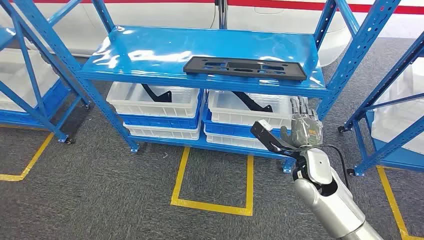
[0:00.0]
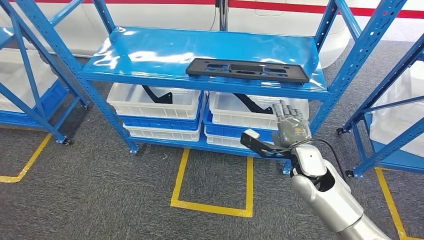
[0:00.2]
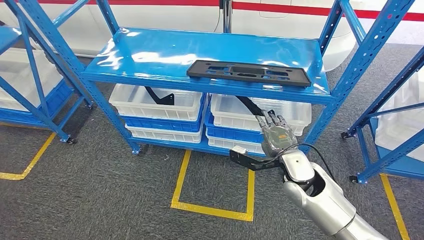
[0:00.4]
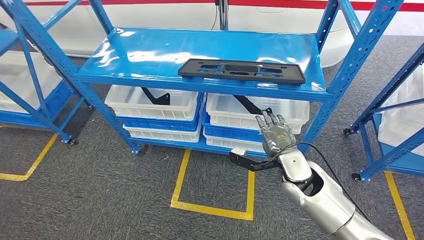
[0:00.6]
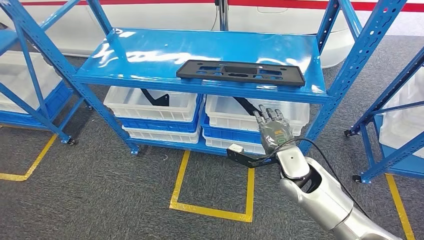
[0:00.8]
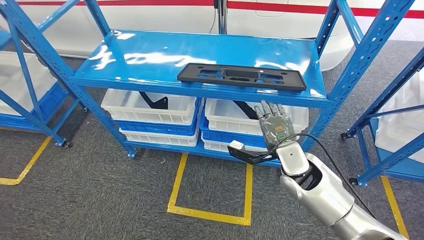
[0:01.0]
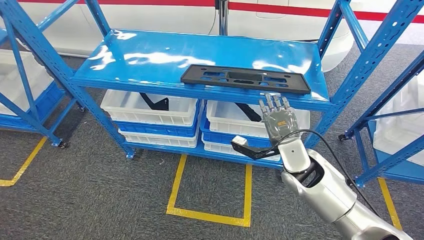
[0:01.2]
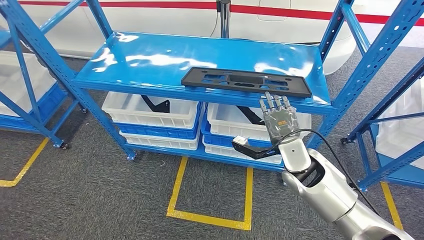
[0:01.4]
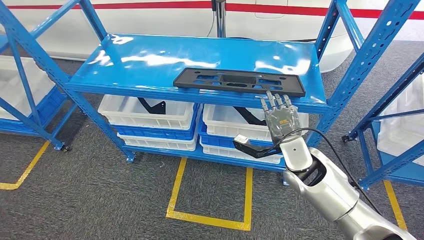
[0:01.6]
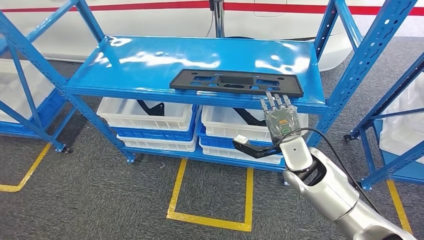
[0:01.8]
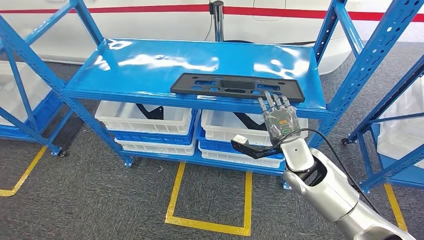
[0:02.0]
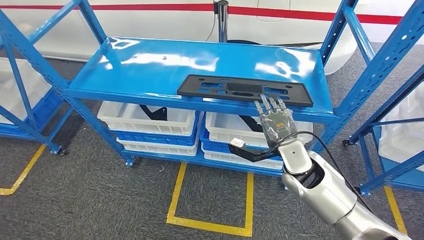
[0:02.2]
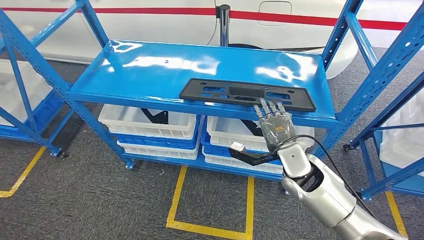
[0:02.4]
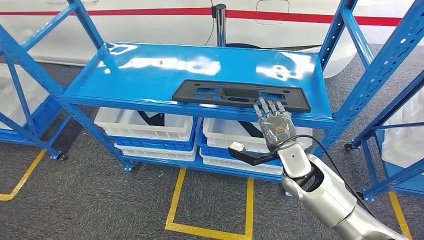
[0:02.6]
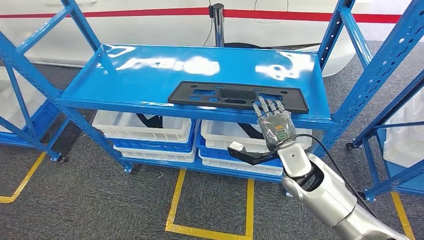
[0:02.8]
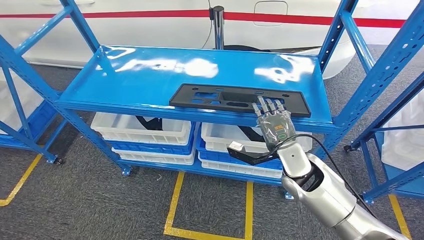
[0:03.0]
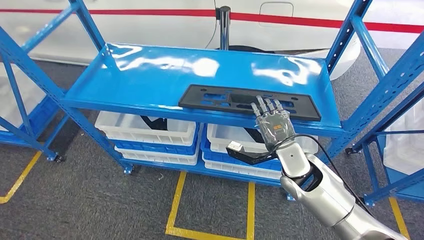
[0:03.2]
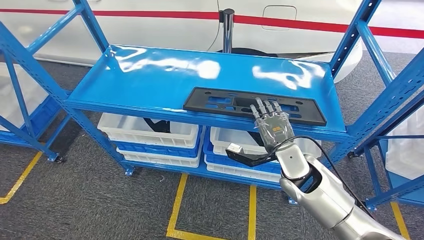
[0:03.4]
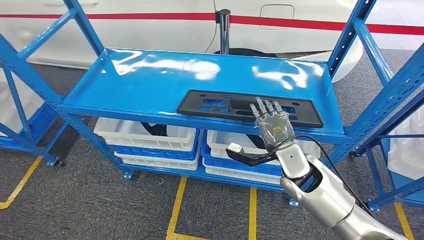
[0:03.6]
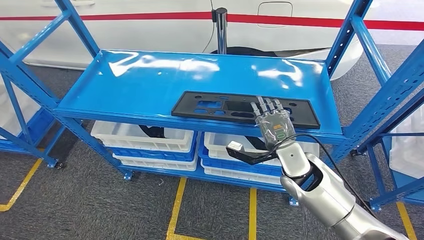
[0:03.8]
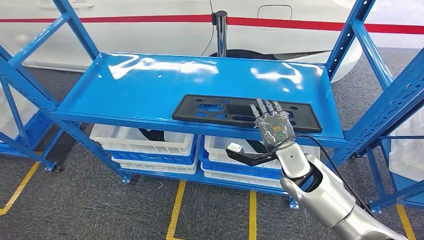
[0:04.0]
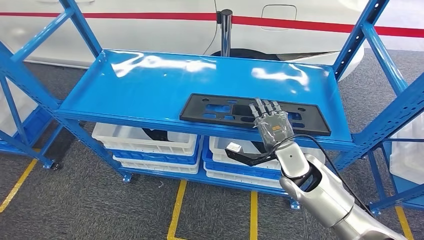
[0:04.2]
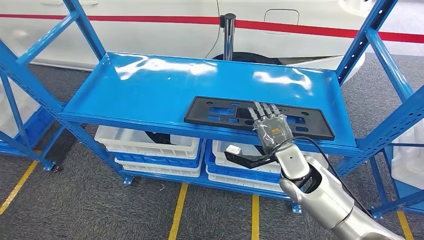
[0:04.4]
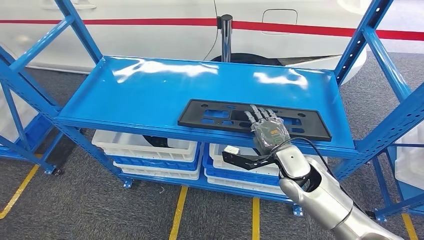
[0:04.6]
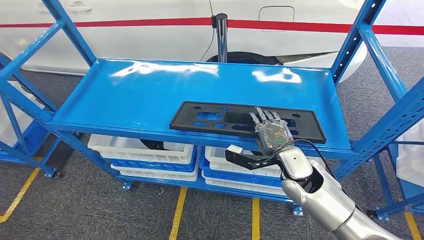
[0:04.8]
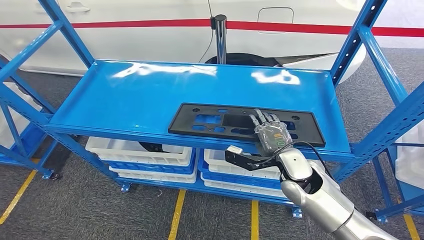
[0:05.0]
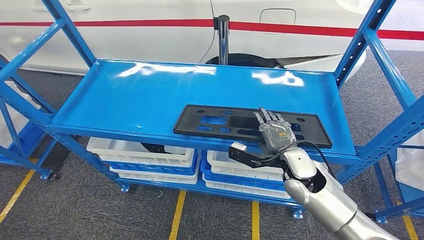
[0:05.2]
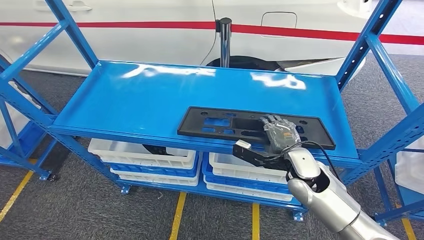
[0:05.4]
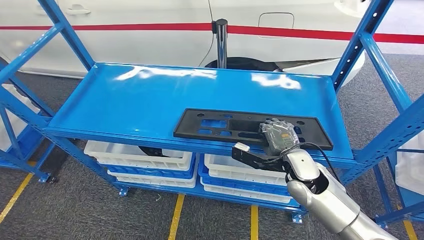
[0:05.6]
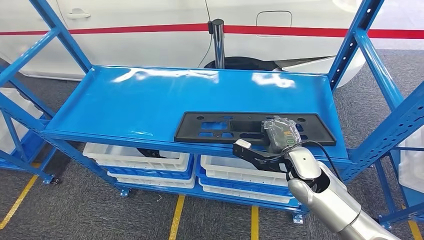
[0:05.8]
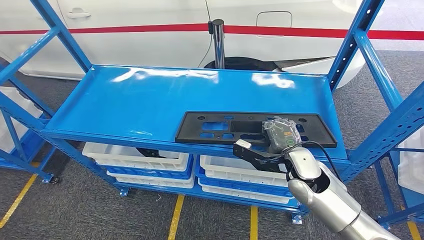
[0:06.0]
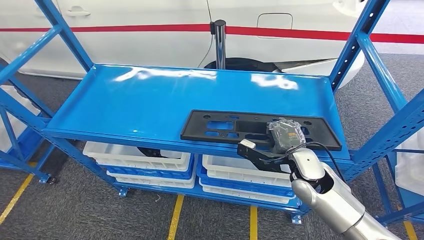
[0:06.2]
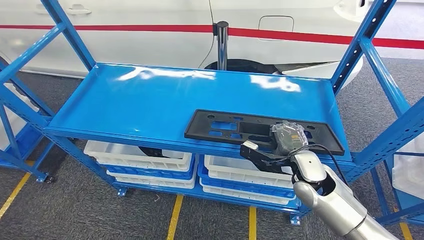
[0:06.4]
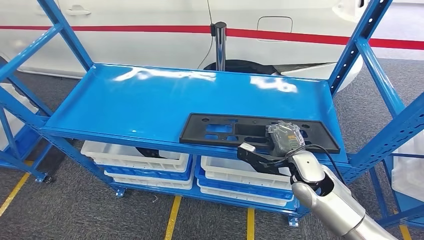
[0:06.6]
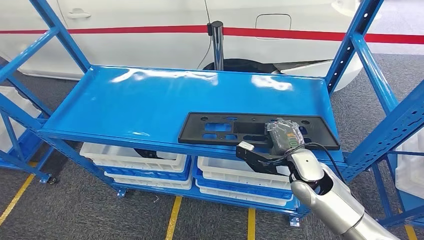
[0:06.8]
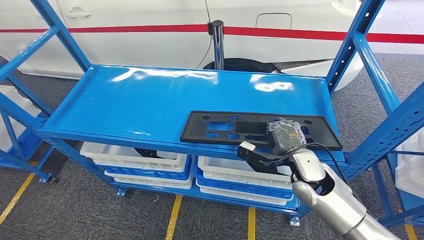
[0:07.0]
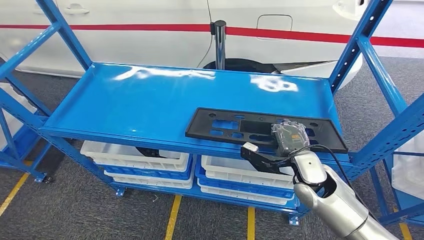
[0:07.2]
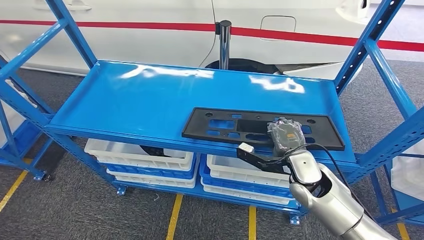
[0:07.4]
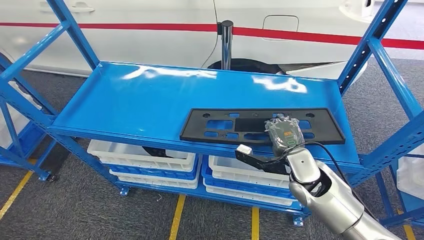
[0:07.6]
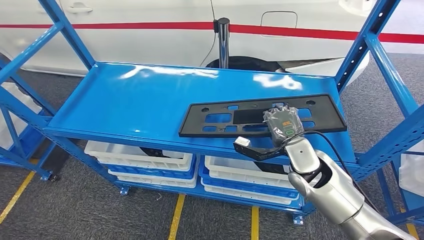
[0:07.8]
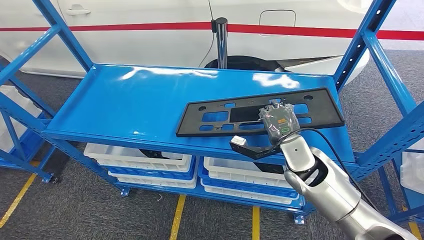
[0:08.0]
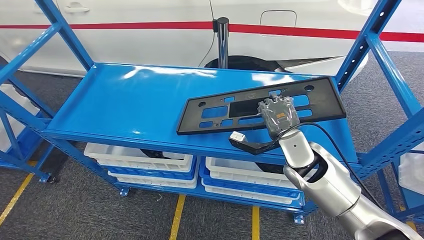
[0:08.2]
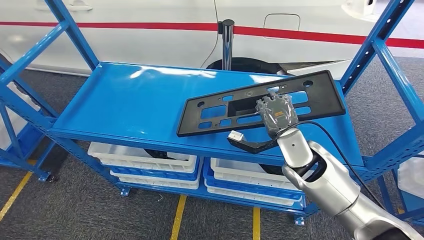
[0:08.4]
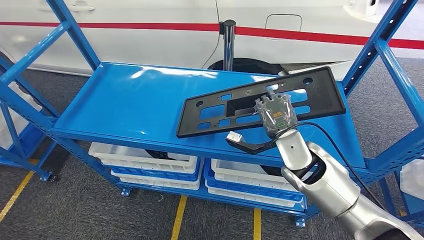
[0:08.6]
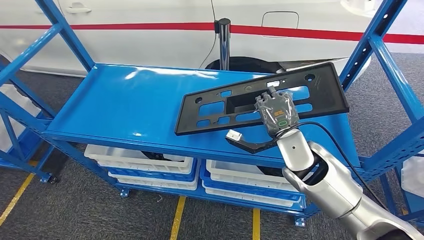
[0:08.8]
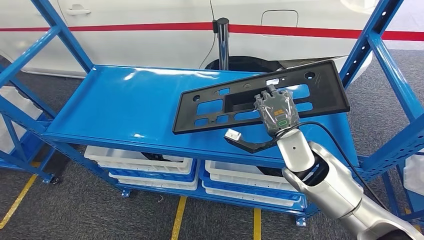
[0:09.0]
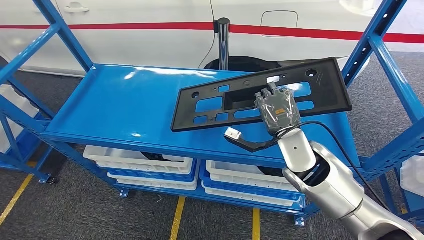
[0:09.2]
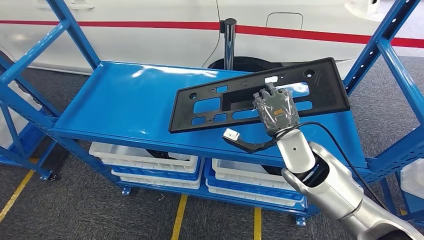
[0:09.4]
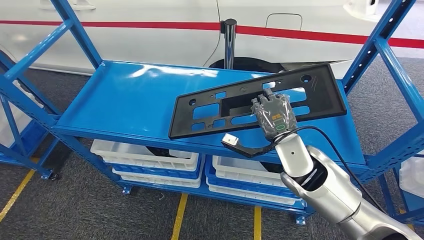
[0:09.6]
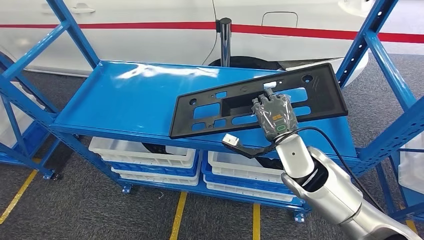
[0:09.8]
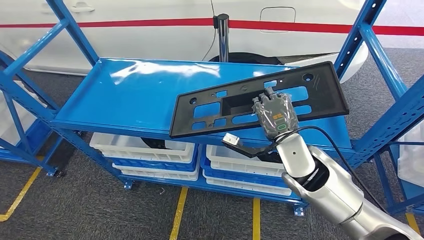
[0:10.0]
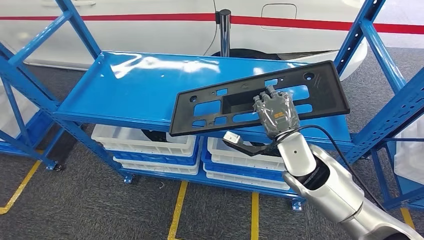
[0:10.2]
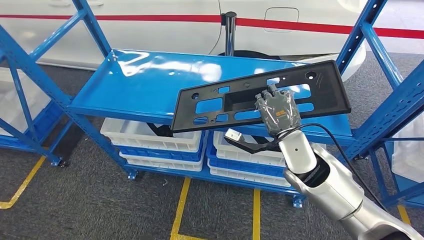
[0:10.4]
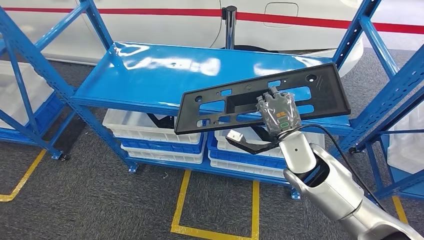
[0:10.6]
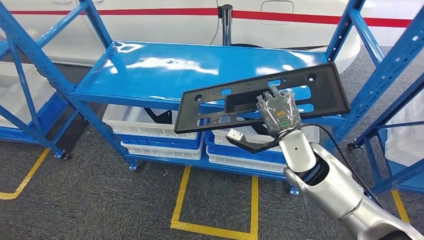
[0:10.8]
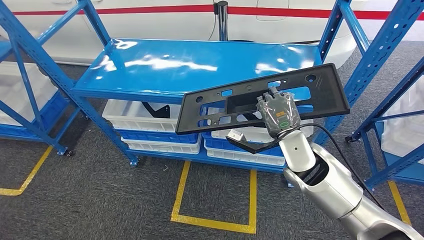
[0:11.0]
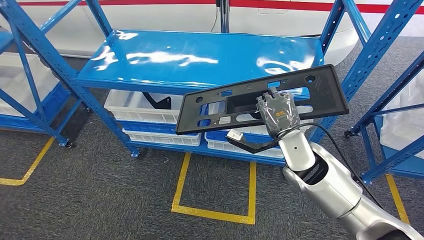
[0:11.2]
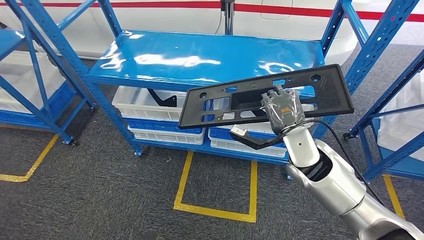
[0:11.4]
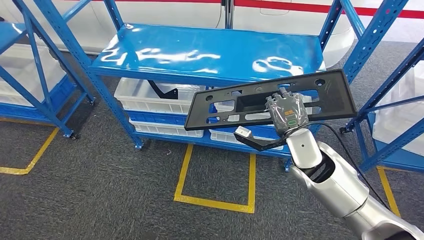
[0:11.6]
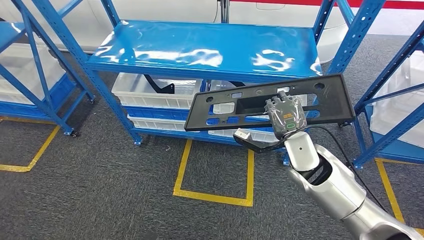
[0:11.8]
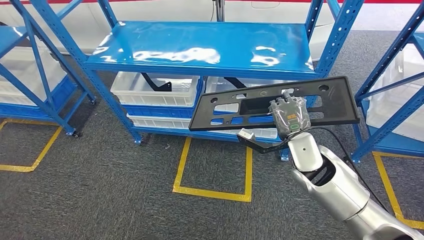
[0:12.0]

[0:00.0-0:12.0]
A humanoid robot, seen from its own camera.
Step, 0:00.0 to 0:11.2: Pick up the large material from the shelf.

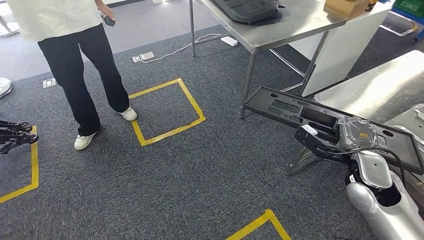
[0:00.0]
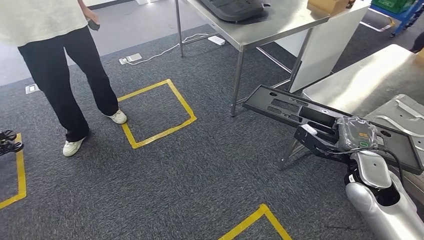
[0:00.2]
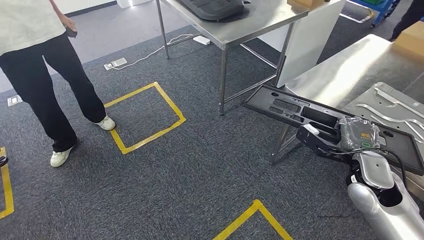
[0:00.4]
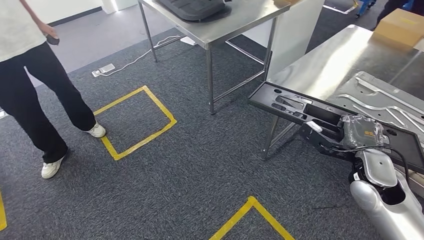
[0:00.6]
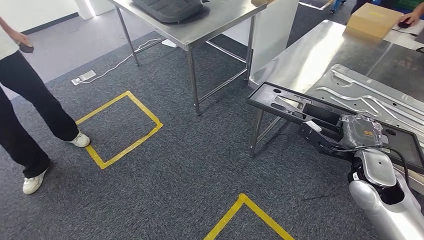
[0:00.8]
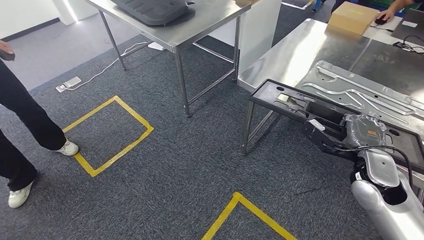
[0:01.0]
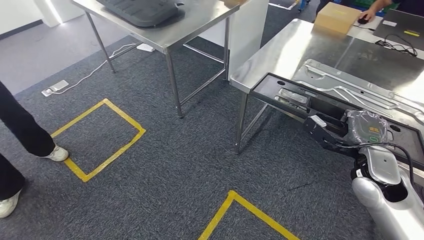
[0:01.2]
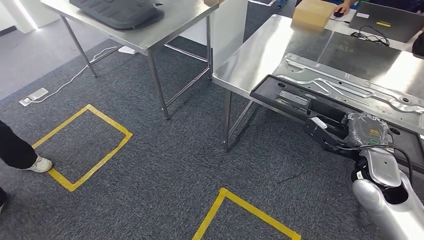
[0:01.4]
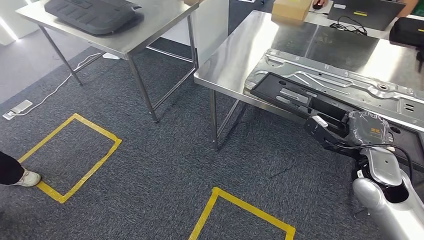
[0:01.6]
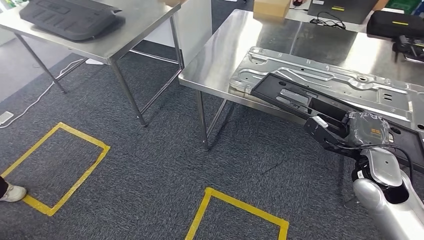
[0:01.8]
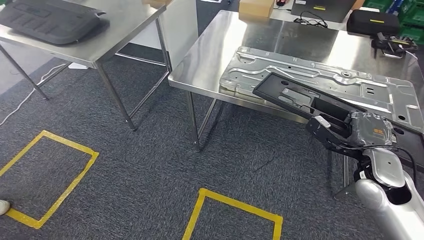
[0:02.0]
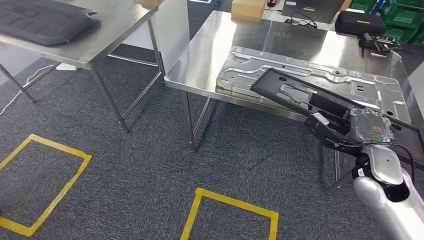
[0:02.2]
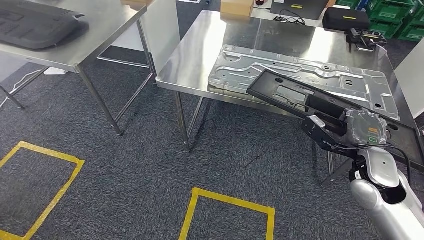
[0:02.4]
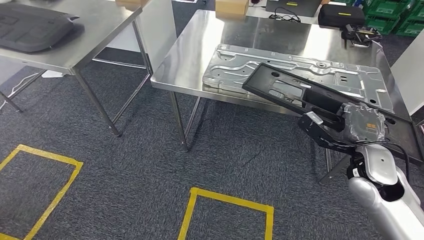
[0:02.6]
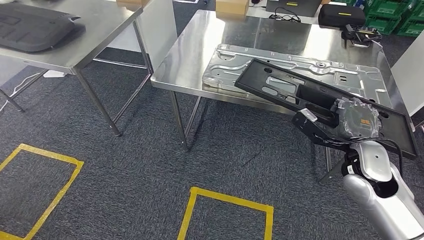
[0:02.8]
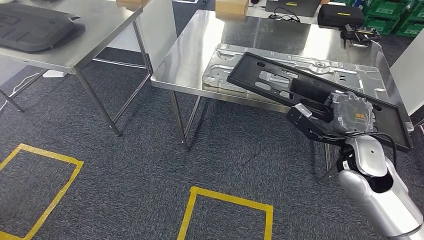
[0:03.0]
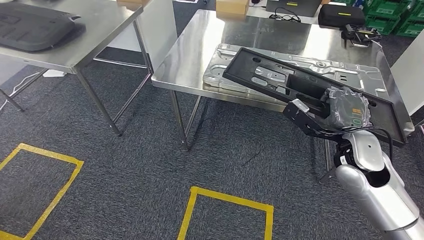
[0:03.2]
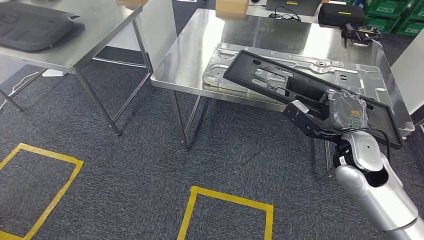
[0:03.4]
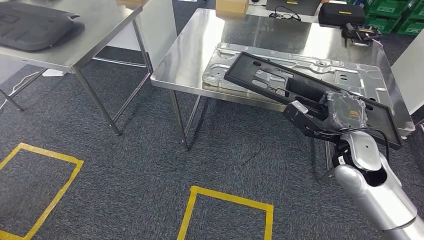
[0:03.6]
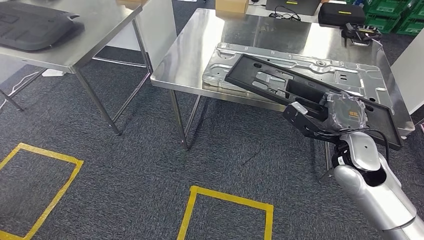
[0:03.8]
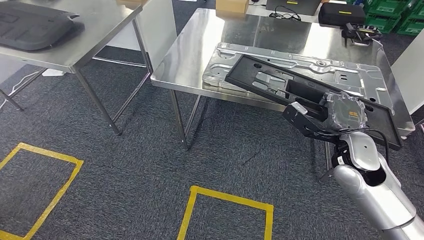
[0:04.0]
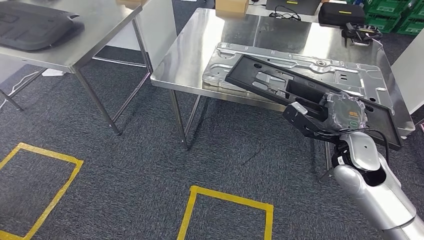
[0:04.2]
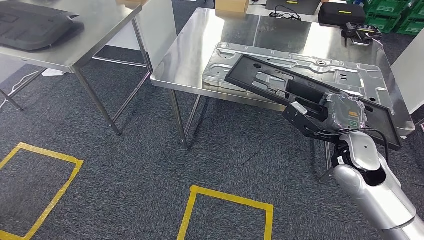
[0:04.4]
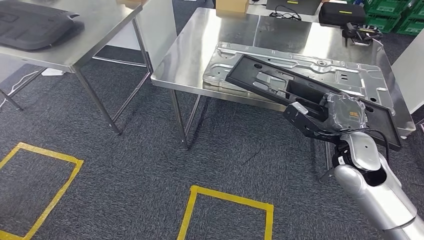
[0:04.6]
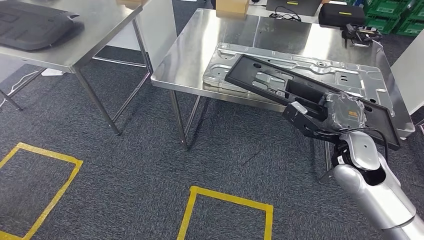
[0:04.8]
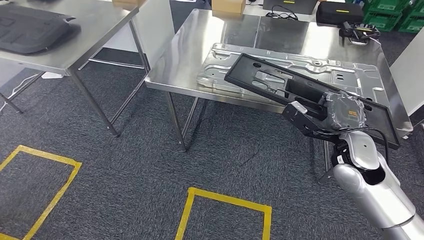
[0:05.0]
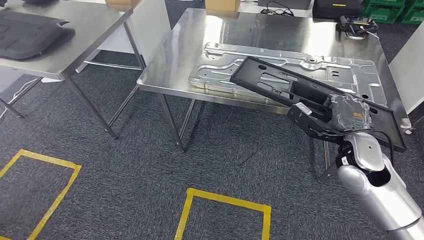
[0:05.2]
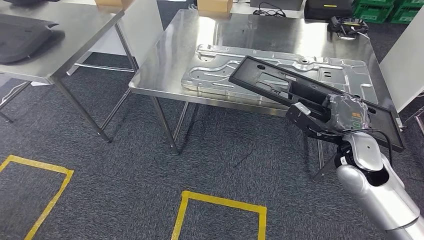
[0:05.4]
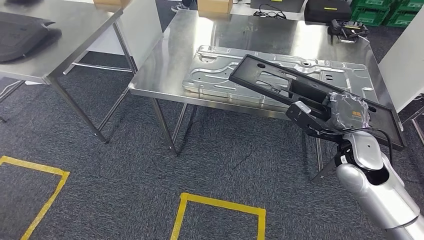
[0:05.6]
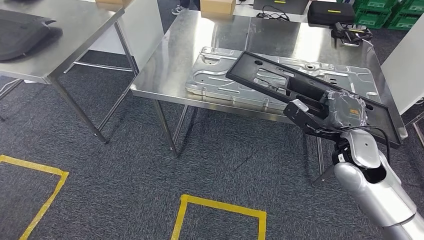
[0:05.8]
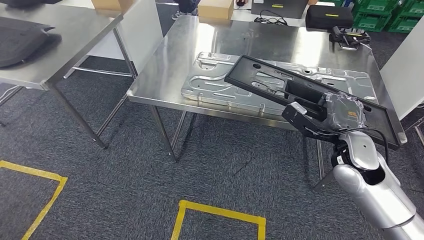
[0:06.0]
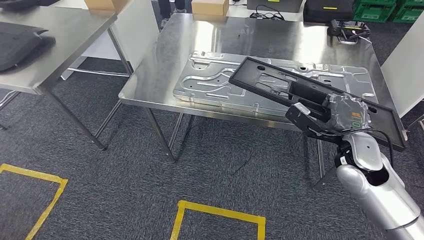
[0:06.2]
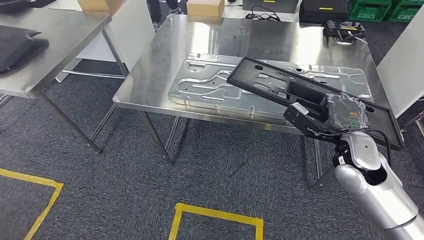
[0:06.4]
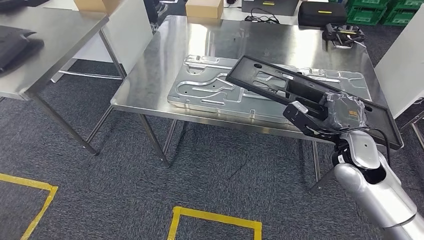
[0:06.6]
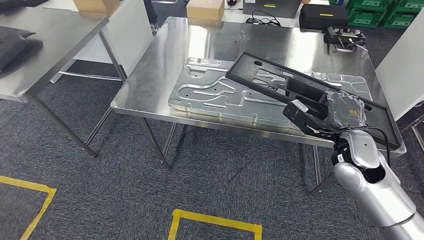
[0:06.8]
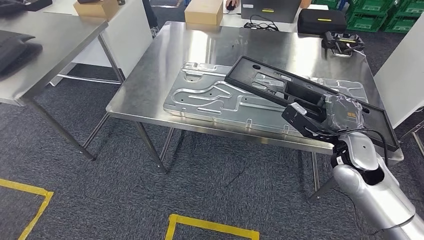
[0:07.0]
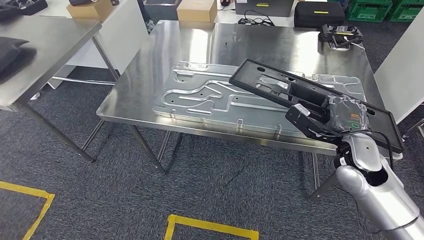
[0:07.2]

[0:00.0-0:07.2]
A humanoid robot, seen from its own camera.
Step, 0:00.0 to 0:06.4: Move the large material to the workbench.
0:02.8 to 0:04.4: The hands move only a little.
